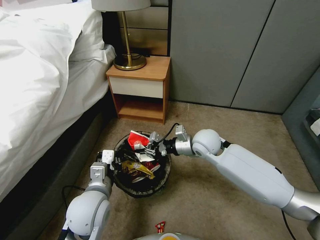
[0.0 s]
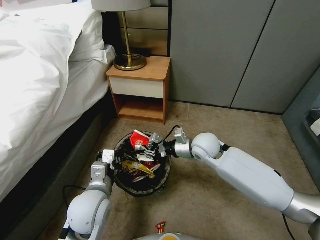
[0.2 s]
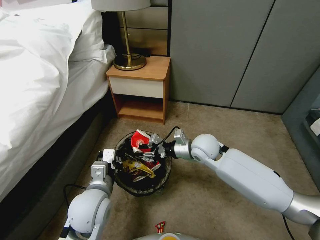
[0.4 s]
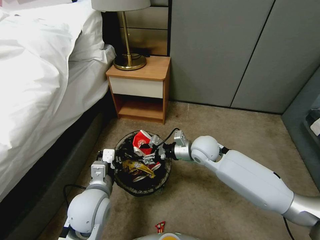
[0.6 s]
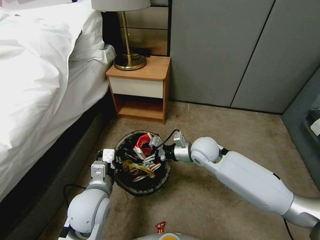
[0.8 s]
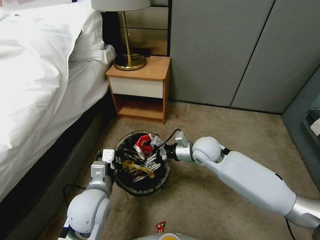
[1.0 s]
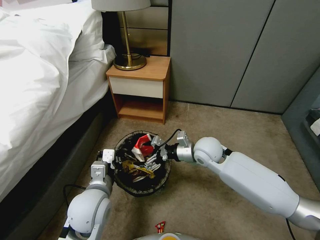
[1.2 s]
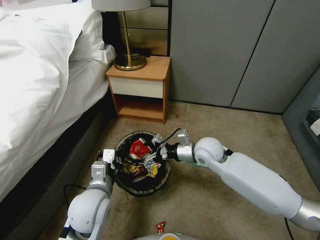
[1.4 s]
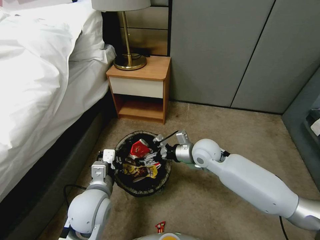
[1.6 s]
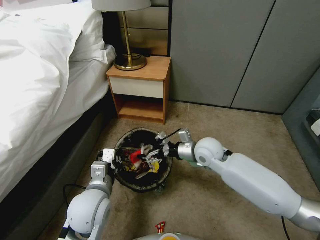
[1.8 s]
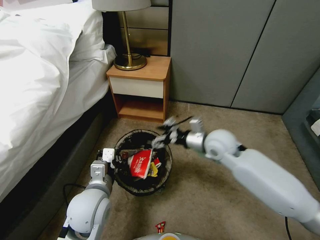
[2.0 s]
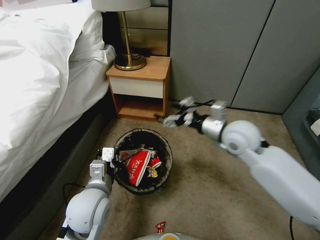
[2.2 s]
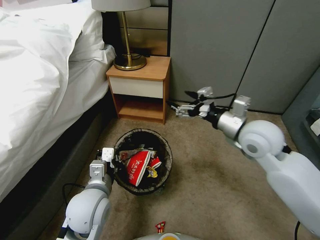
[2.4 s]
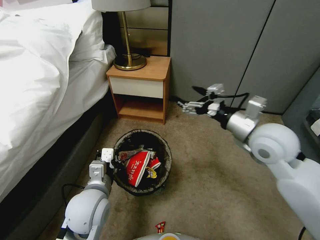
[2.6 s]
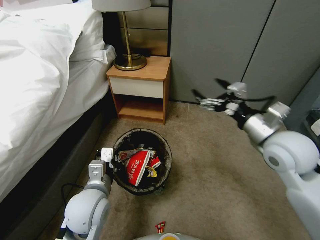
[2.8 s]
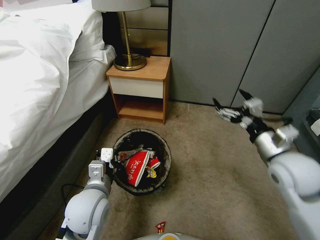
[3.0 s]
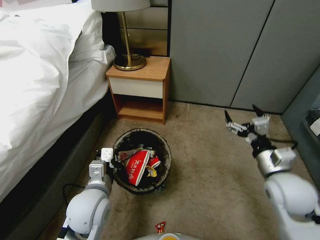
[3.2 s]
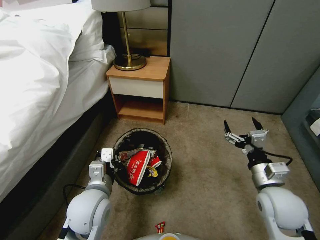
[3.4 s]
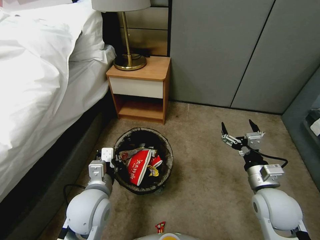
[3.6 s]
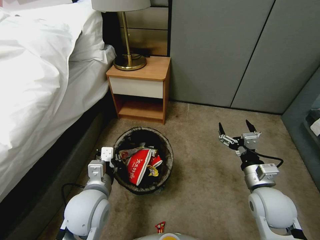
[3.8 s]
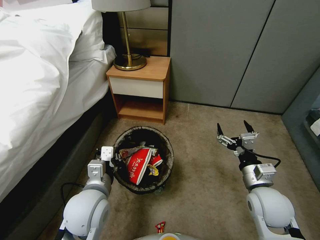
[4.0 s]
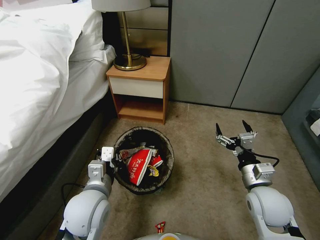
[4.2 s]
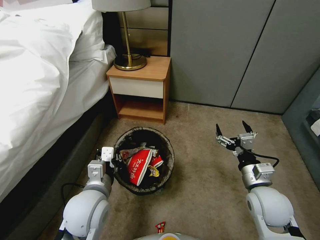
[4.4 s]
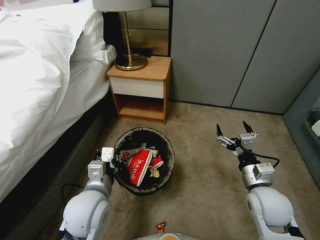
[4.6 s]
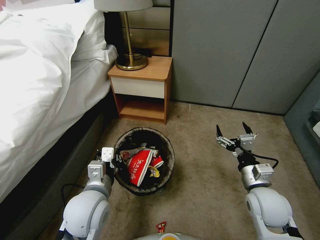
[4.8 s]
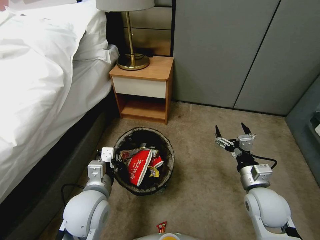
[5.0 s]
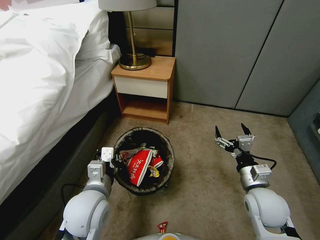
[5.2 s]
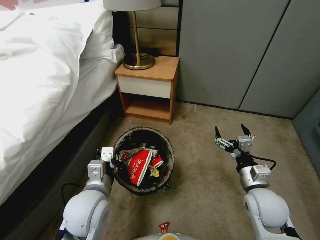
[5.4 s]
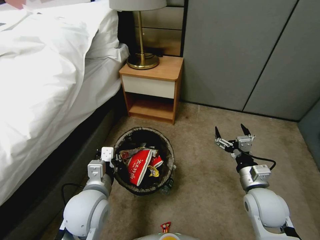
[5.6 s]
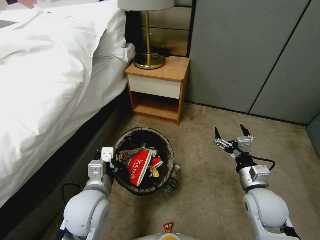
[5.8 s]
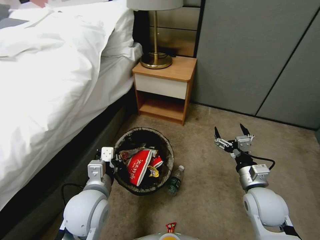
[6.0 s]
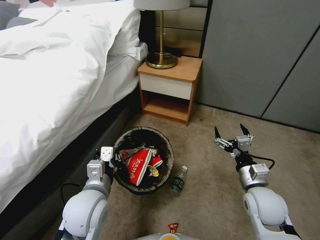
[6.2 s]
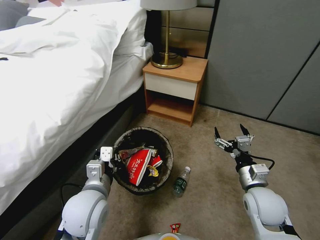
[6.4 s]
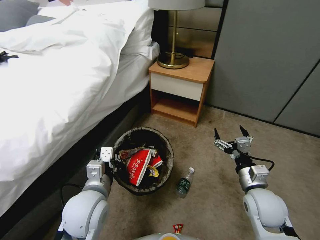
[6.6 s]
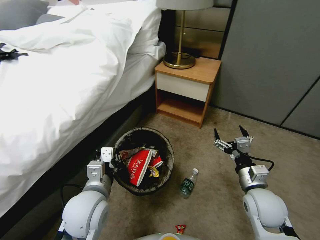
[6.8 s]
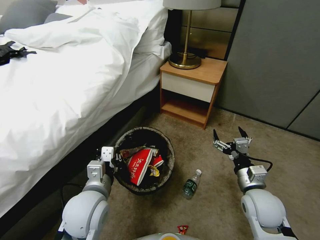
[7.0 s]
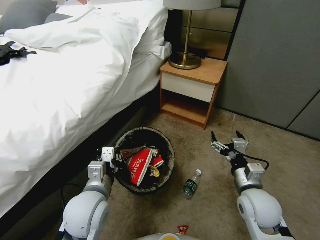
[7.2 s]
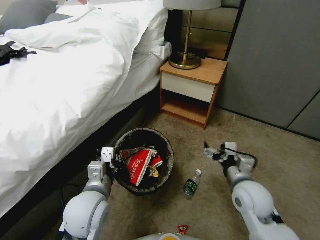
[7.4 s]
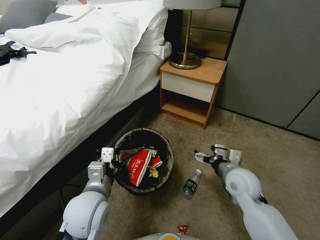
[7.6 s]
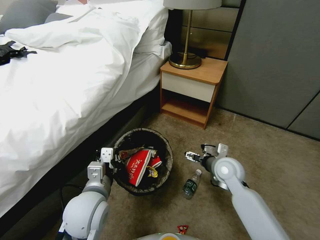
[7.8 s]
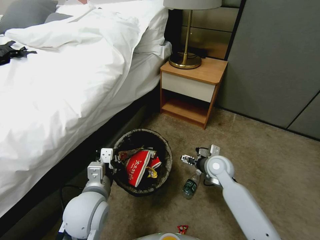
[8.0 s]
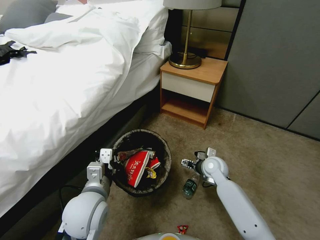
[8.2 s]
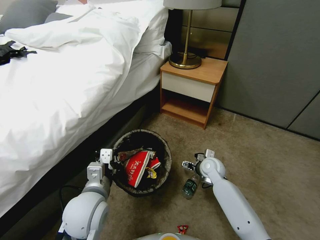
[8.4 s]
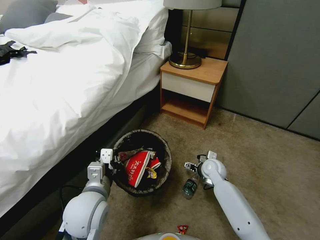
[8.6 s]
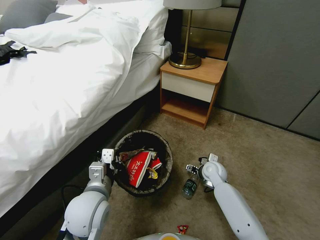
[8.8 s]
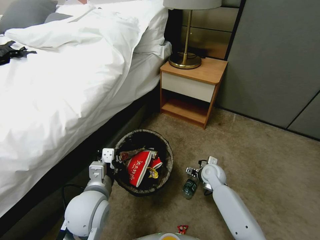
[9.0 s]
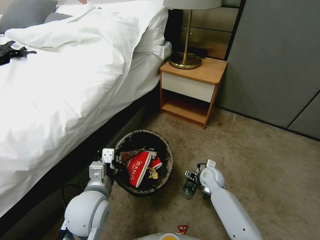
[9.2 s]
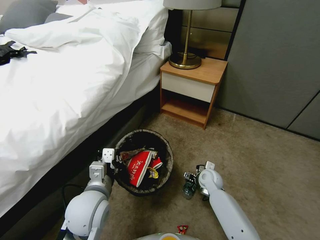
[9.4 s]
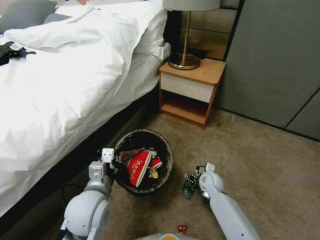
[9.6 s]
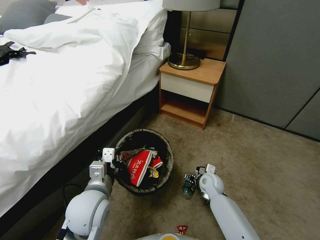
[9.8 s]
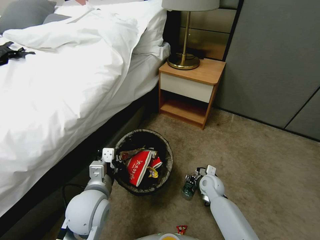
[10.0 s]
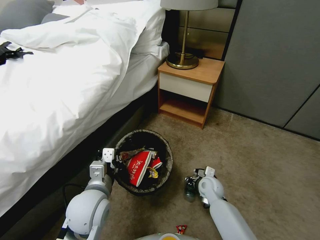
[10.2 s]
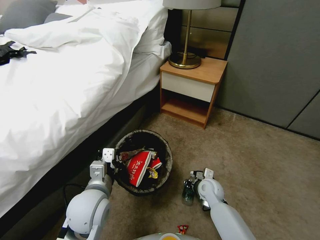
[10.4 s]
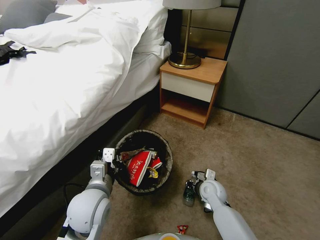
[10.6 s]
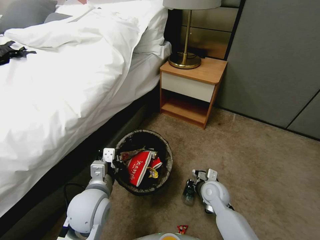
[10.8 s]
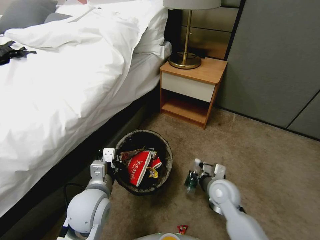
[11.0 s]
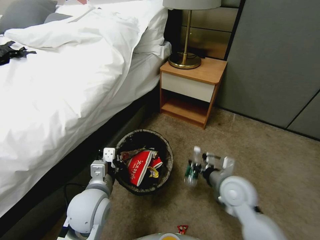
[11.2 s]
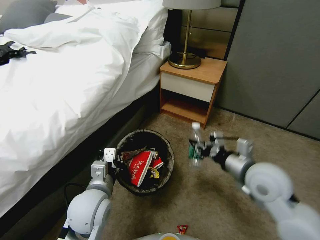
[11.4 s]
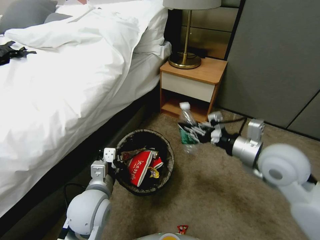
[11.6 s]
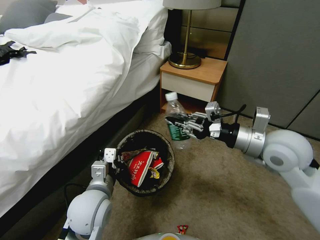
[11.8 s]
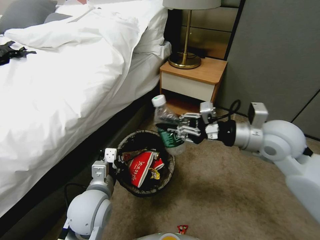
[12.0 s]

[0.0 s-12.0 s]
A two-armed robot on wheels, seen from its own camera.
Task of the whole recording: Pick up the trash bin, then pick up the garbage from the floor and place it into the trash bin.
0.0 to 1.6 s: The right gripper opens up.
1.6 to 3.0 s: The right gripper is displaced to the right, backward and upward by approximately 25 cm.
3.0 to 4.4 s: The right gripper moves downward, approximately 10 cm.
6.0 to 7.6 s: The right gripper goes approximately 5 cm forward.
7.6 to 9.0 s: The right gripper travels downward and forward by about 15 cm.
9.0 to 10.4 s: The right gripper goes some 5 cm backward, and closes up.
10.4 to 12.0 s: The right gripper moves upward, some 35 cm.

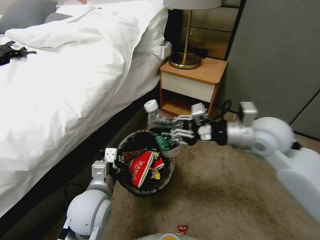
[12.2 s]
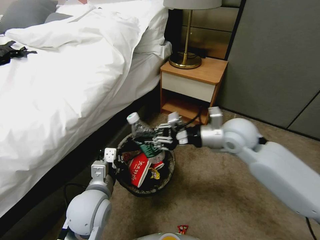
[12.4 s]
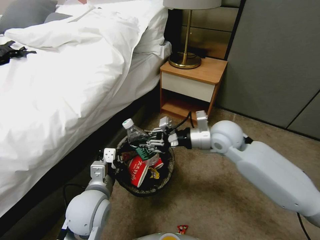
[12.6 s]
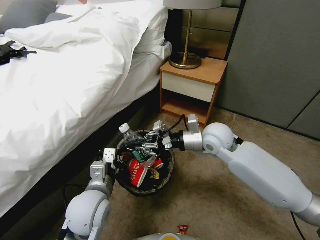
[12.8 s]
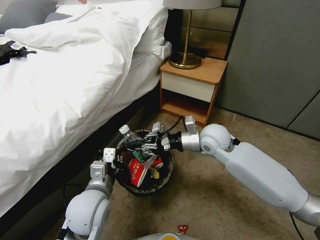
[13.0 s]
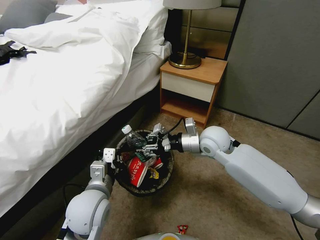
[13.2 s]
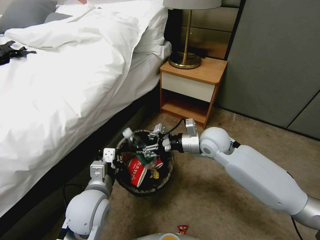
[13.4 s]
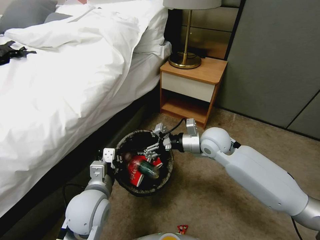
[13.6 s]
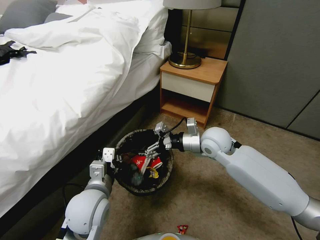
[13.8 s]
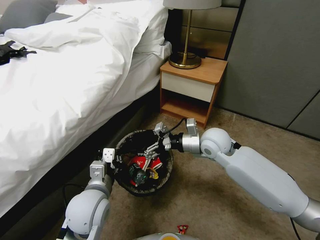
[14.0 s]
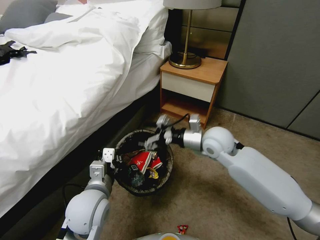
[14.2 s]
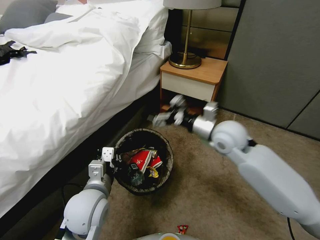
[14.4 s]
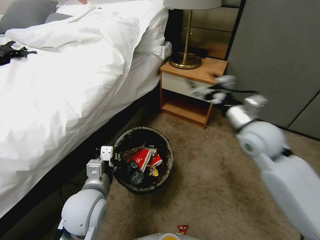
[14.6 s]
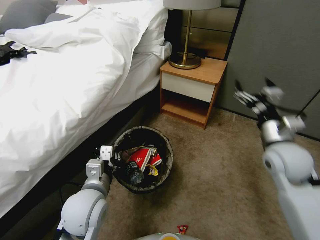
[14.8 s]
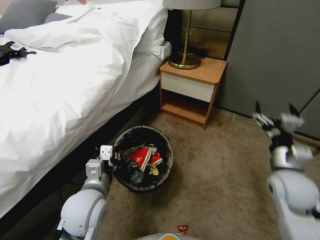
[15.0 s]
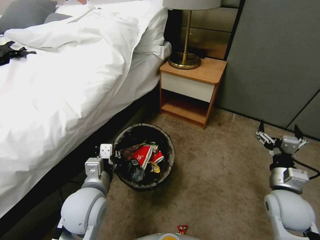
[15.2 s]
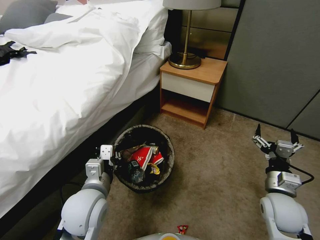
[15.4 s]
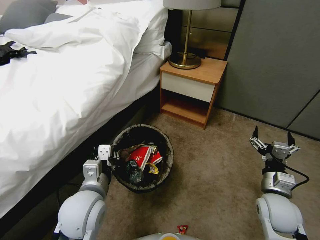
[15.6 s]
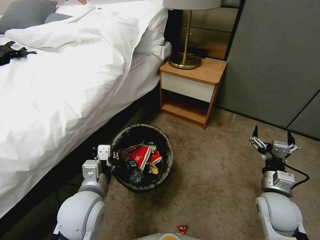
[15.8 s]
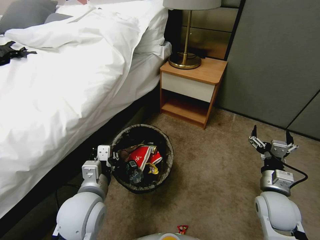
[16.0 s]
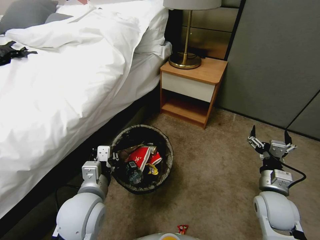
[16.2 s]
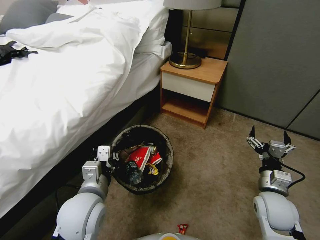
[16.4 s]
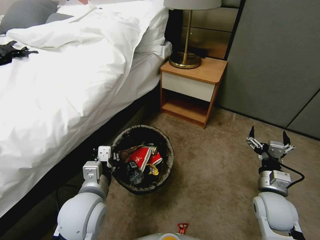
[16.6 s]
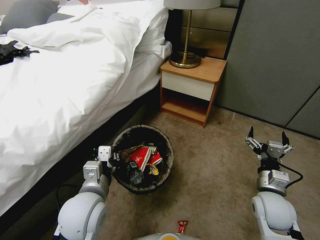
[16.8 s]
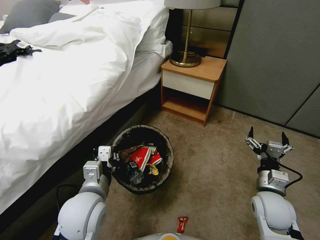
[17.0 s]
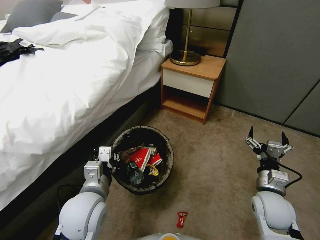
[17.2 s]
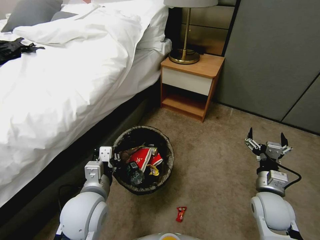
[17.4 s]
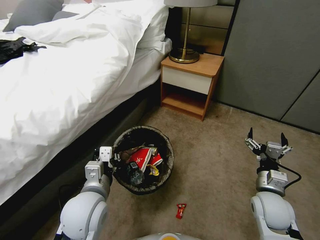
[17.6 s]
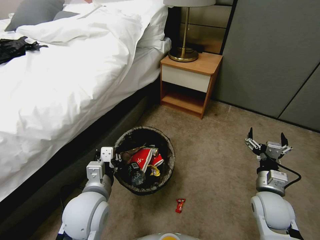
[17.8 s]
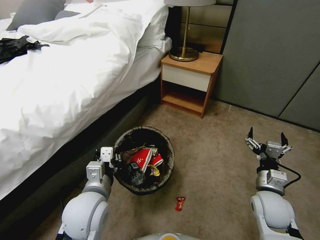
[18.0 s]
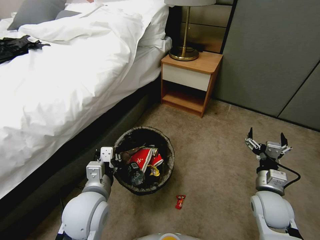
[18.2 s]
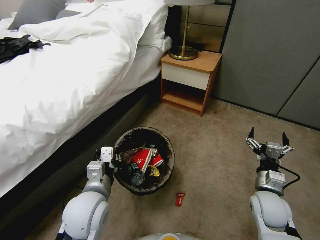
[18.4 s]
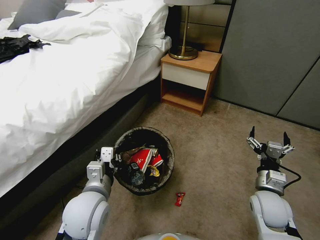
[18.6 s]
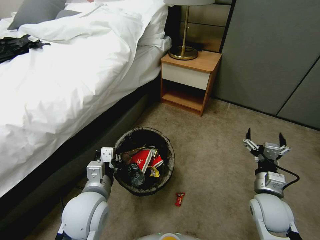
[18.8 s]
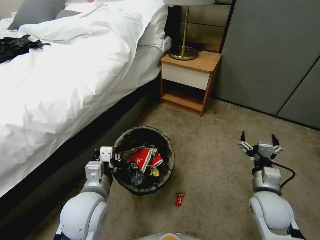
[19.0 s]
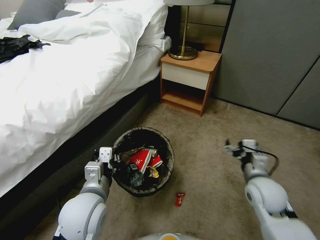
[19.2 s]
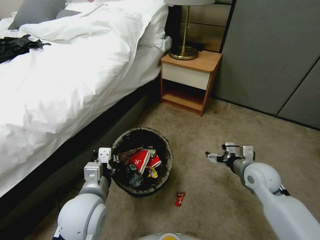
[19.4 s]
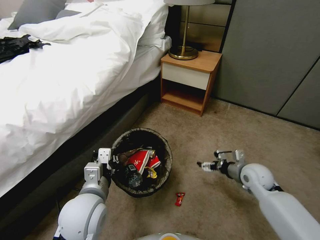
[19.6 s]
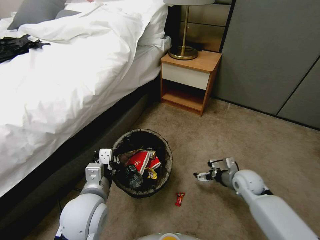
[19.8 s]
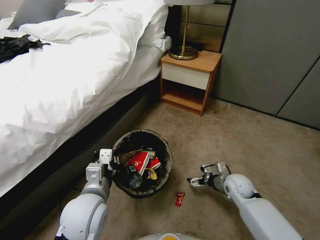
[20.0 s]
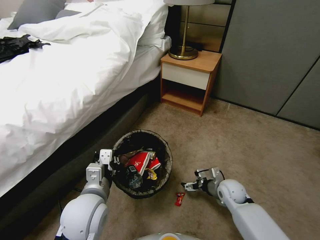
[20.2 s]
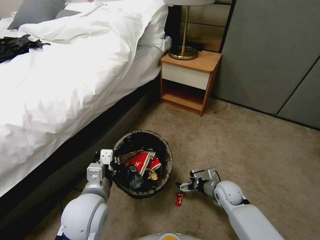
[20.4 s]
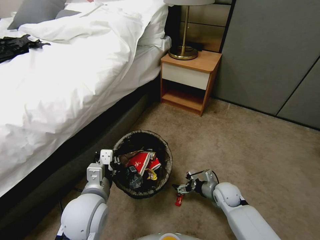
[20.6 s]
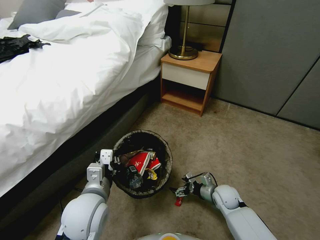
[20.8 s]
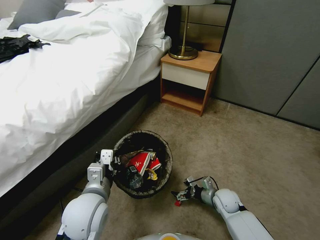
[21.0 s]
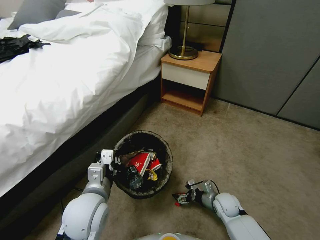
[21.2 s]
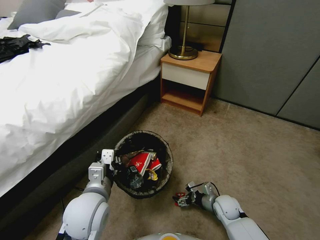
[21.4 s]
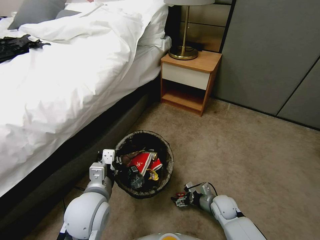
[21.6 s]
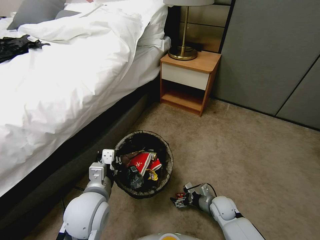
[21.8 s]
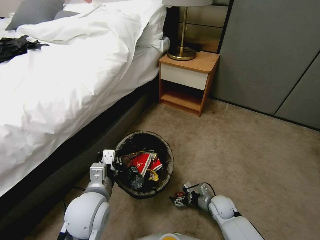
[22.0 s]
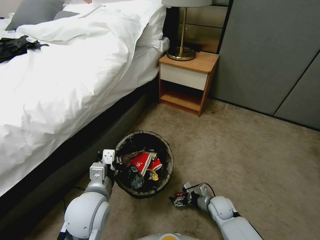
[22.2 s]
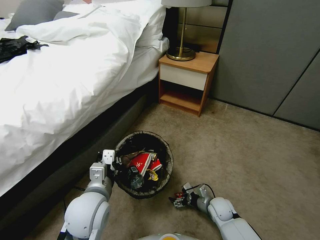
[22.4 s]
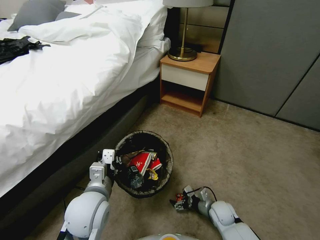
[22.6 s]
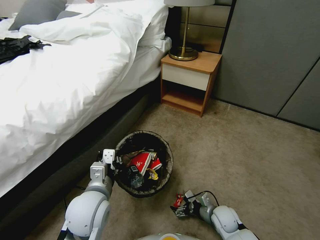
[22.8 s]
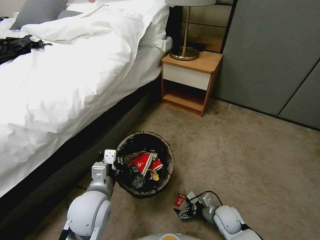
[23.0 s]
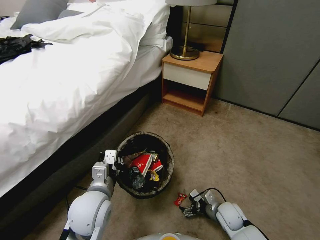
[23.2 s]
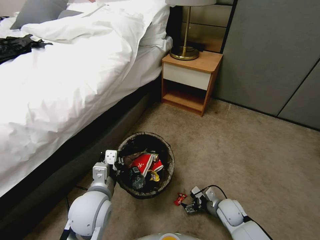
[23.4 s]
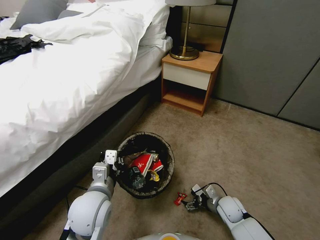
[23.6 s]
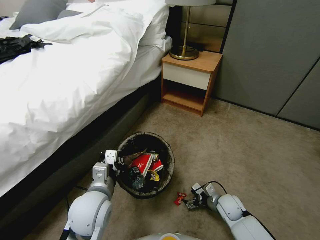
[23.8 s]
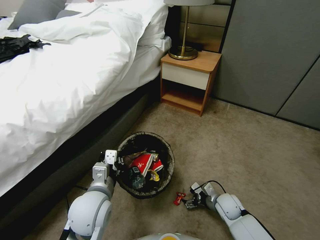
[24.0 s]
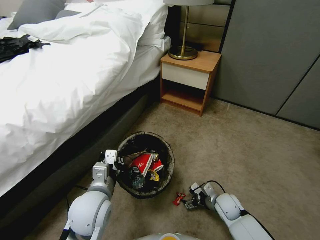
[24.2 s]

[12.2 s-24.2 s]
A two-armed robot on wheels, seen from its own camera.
Task of the whole recording: Pick up the trash bin, then pick up the garbage from the floor and place it into the trash bin.
12.2 to 13.8 s: The right gripper travels downward and to the left by roughly 15 cm, and opens up.
13.8 to 15.2 s: The right gripper is displaced to the right, backward and downward by some 25 cm.
15.2 to 16.6 s: The grippers make only small movements.
18.2 to 19.8 s: The right gripper travels forward and downward by some 10 cm.
19.8 to 21.2 s: The right gripper goes approximately 15 cm downward and to the left.
21.2 to 22.6 s: The right gripper ends up roughly 5 cm from where it was.
22.6 to 24.2 s: The grippers move only a little.
